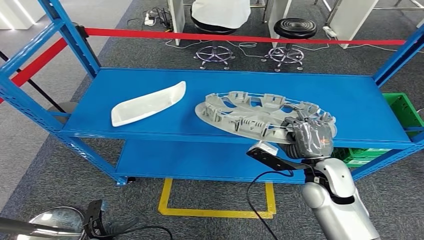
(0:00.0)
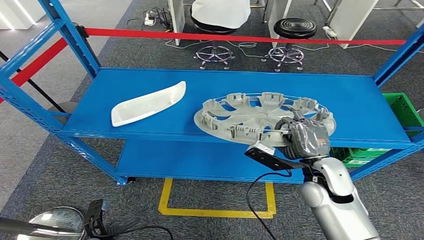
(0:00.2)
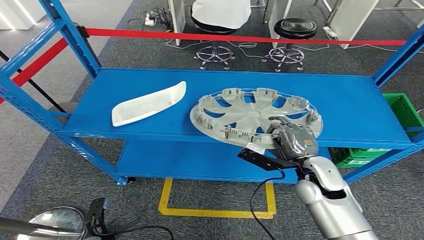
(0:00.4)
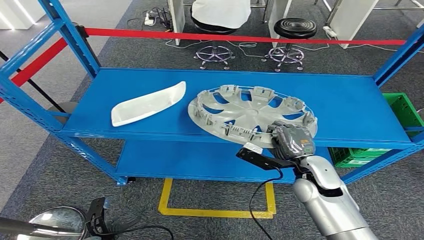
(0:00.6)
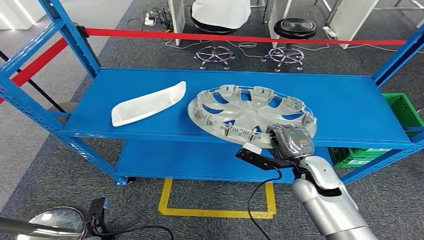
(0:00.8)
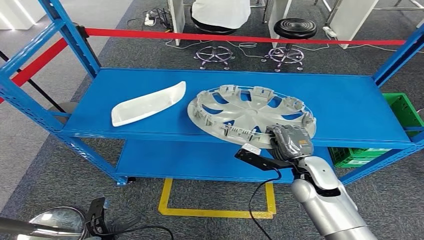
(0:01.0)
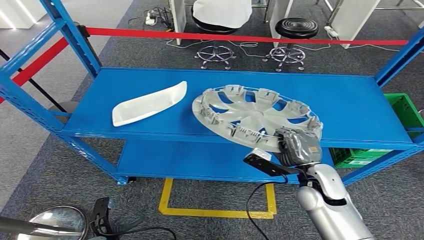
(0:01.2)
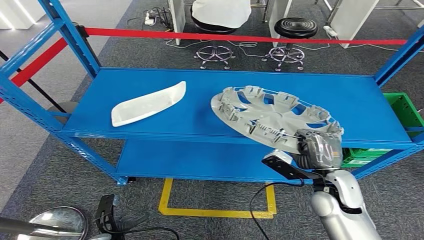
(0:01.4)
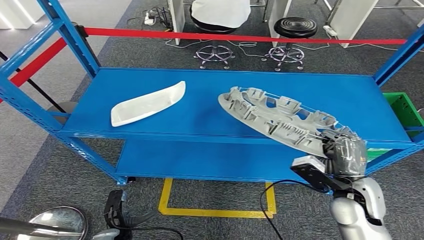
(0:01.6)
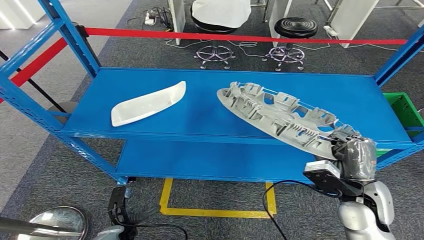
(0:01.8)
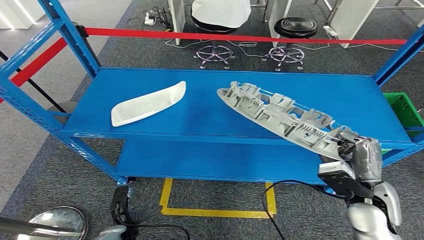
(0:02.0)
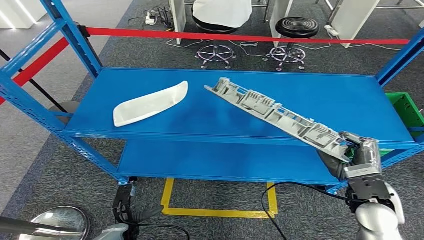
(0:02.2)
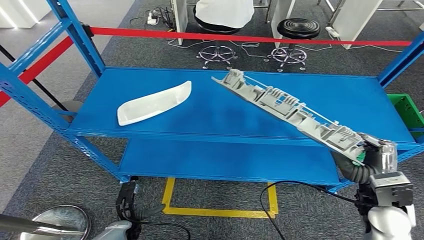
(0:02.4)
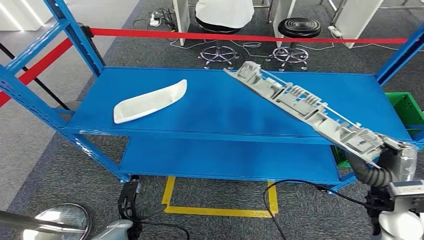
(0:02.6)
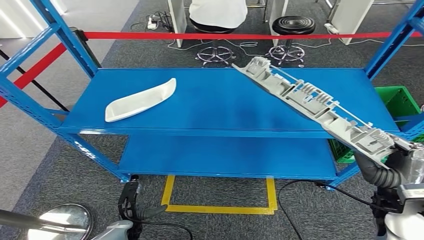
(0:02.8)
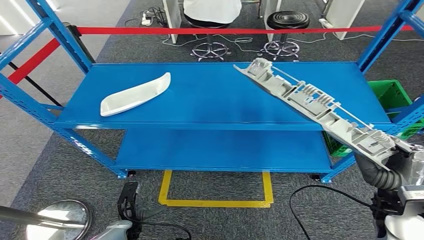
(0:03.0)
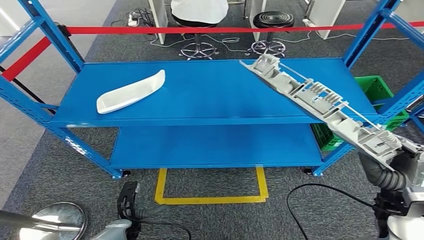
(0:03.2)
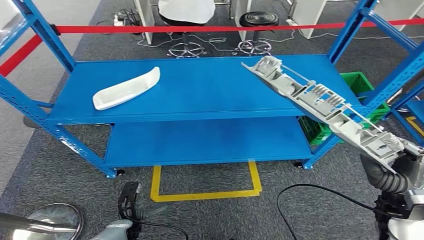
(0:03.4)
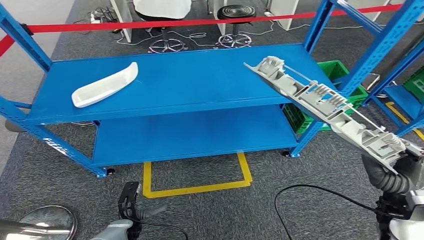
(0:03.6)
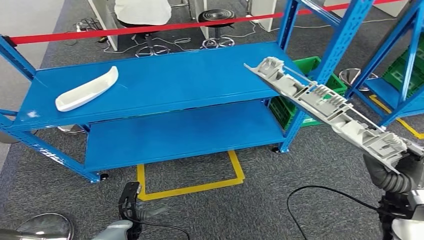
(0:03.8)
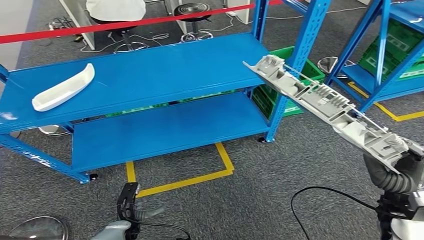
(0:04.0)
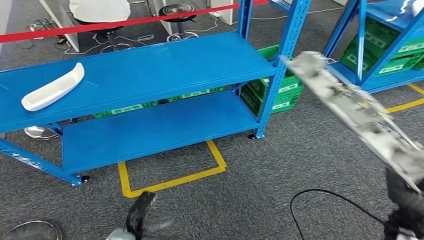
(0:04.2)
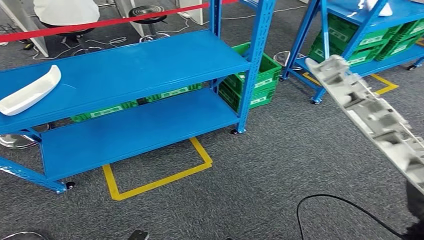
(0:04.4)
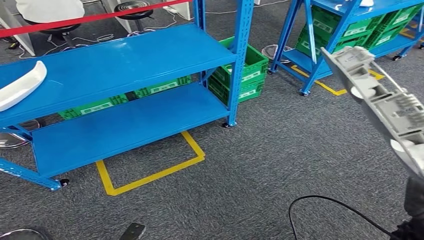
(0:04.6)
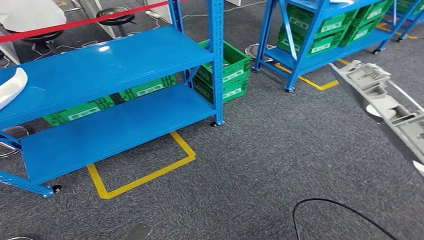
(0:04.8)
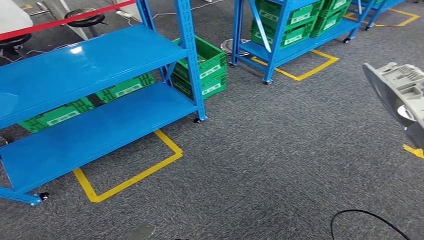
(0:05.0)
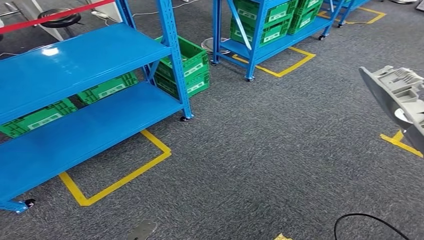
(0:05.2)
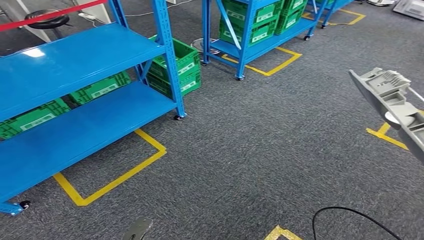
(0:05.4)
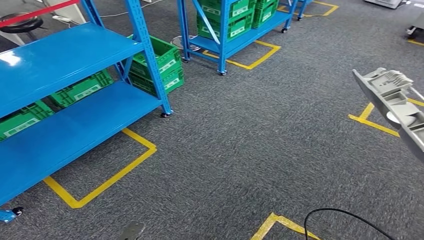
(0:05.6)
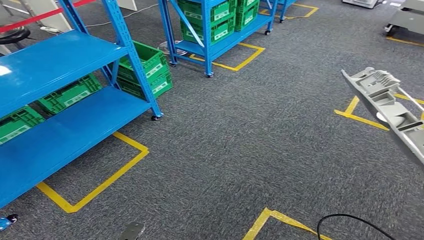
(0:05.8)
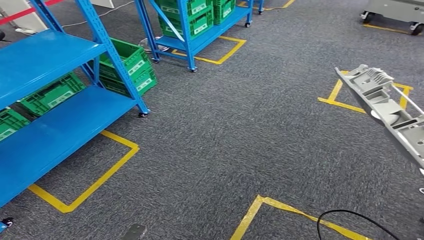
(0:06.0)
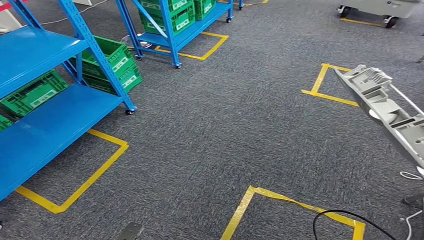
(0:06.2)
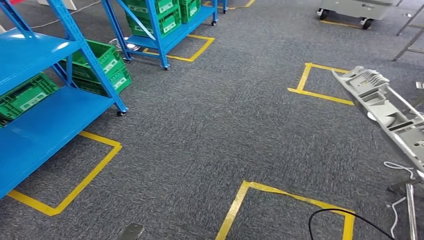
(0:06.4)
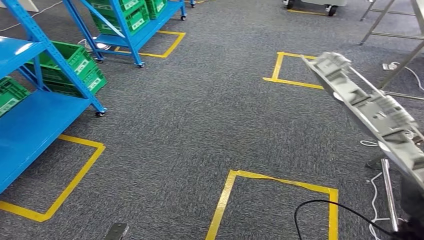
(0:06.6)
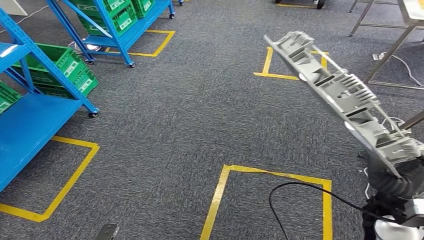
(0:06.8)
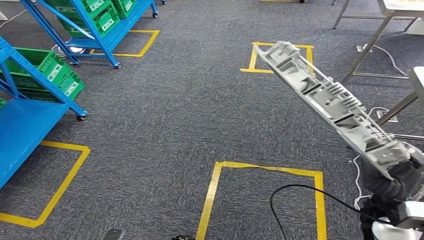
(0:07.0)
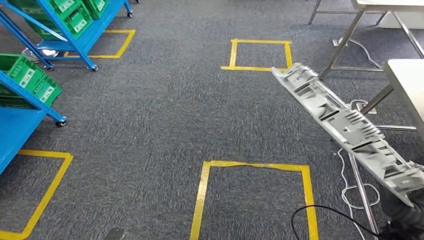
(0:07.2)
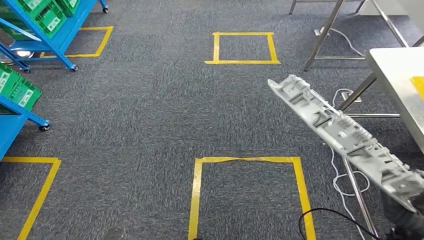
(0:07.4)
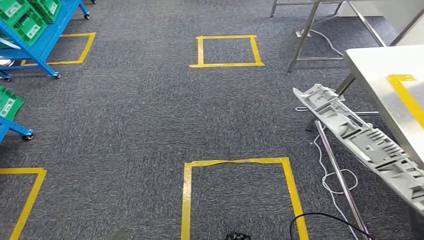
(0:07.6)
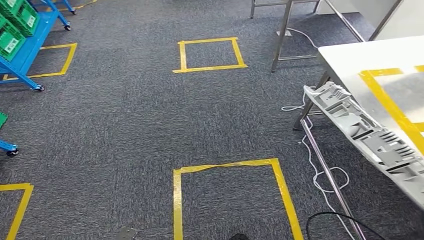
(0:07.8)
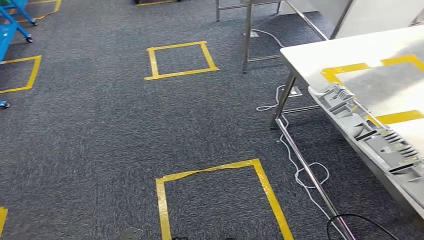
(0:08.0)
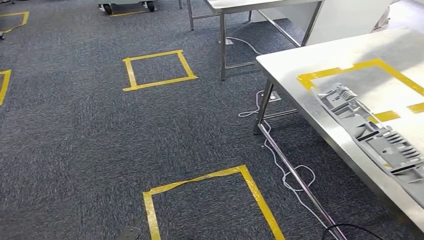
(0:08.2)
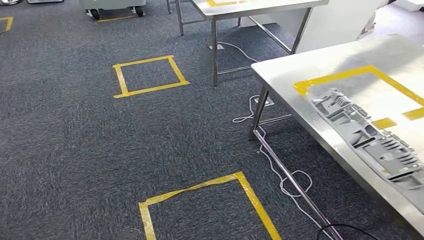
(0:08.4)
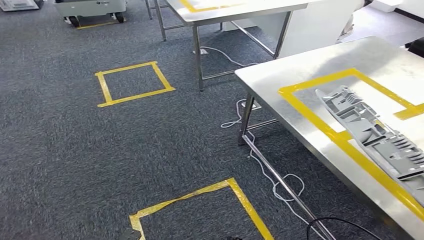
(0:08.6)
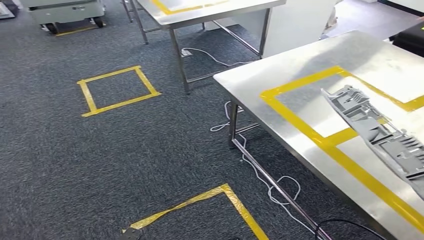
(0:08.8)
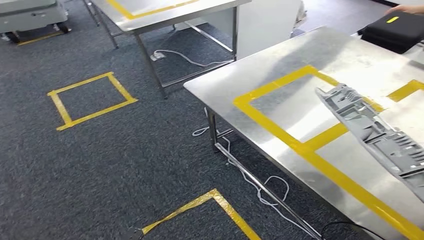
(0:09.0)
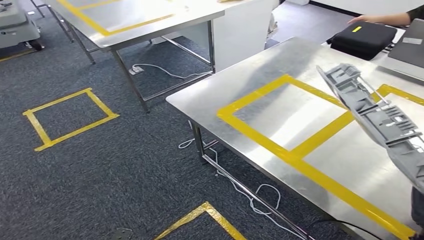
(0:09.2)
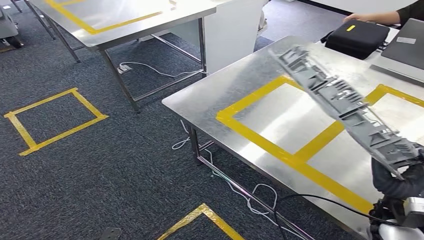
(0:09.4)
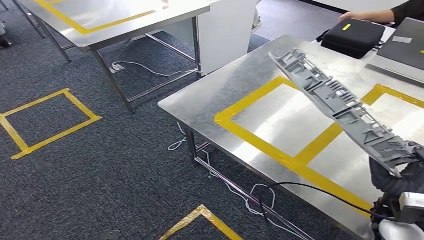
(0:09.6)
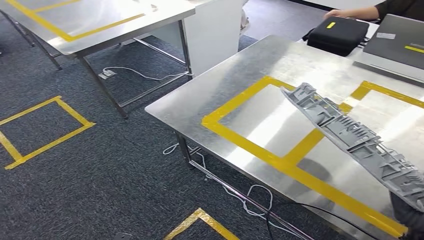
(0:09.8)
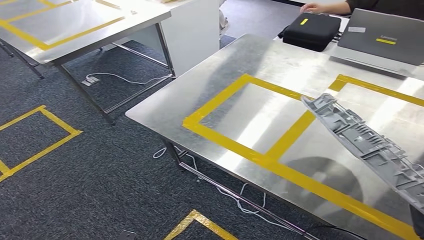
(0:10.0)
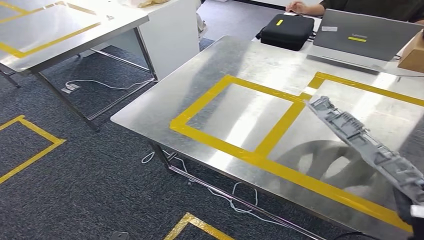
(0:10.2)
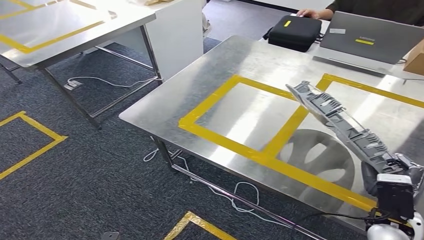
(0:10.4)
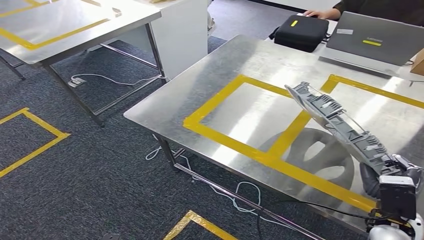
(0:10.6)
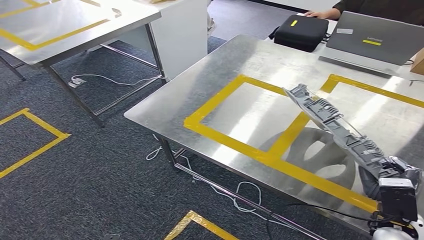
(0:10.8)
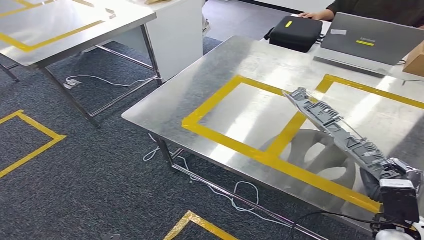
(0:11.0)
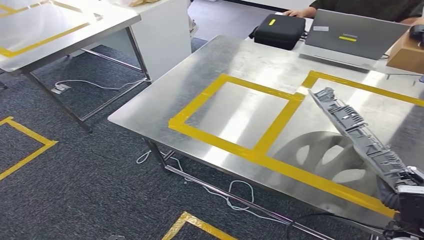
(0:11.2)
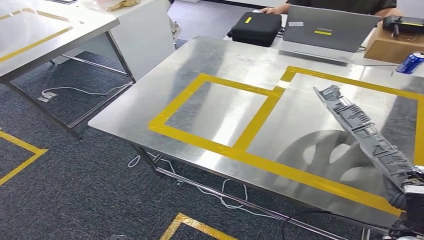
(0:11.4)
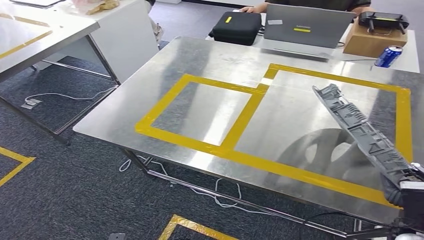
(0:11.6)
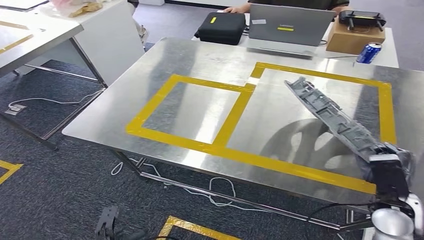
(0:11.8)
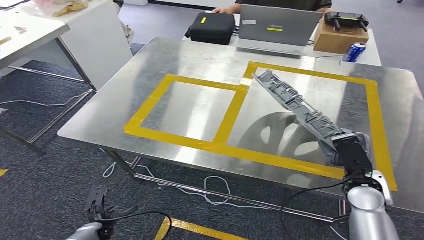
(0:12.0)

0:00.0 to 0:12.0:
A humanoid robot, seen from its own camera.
Step, 0:00.0 to 0:02.8: Pick up the small parts from the shelf.
Step, 0:03.0 to 0:11.4: Move the small parts to the workbench.
0:00.0 to 0:01.6: The right hand shifts by about 5 cm; the left hand ends up about 5 cm from where it was.

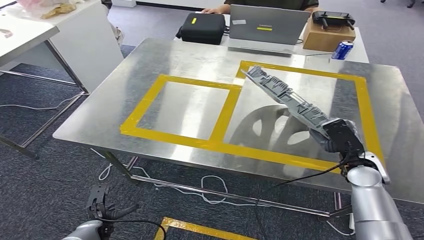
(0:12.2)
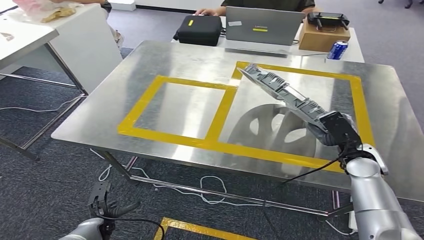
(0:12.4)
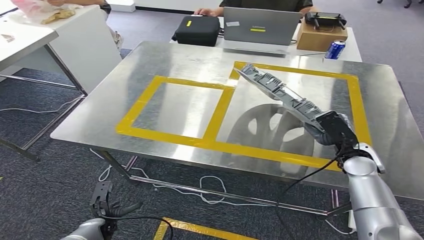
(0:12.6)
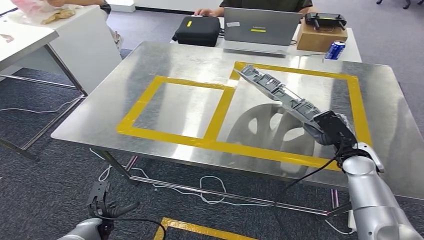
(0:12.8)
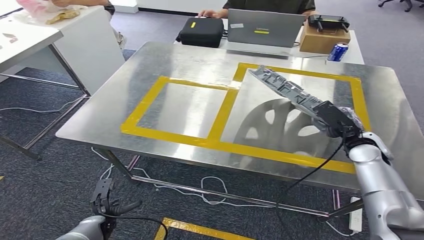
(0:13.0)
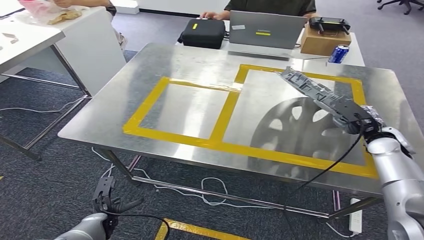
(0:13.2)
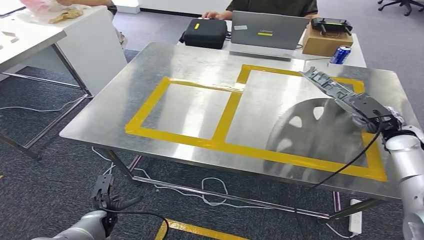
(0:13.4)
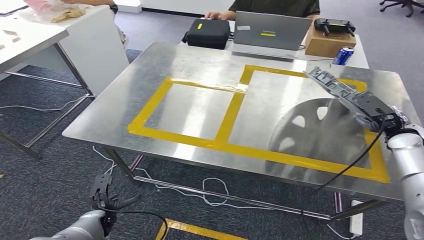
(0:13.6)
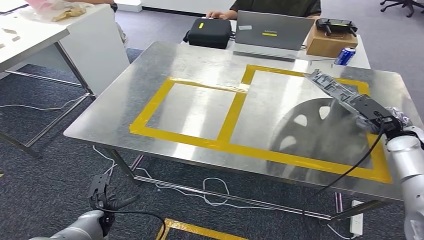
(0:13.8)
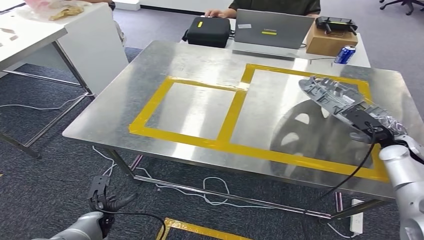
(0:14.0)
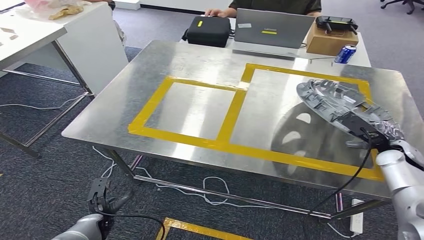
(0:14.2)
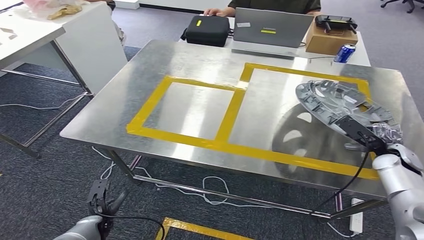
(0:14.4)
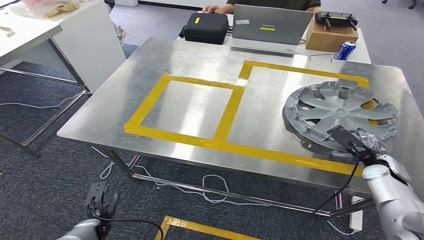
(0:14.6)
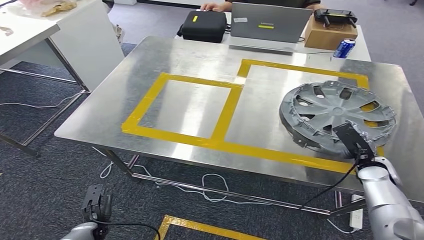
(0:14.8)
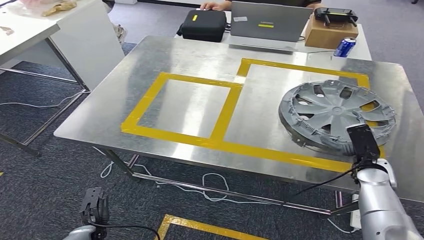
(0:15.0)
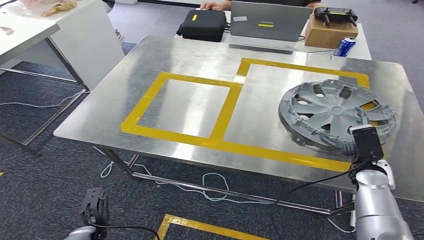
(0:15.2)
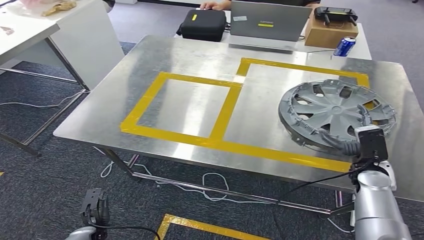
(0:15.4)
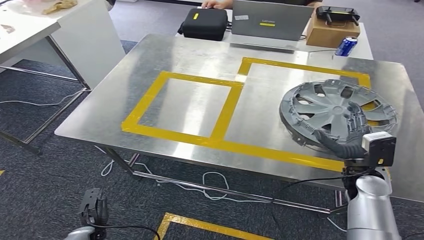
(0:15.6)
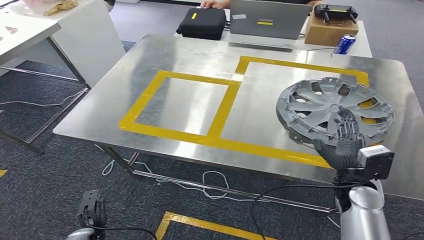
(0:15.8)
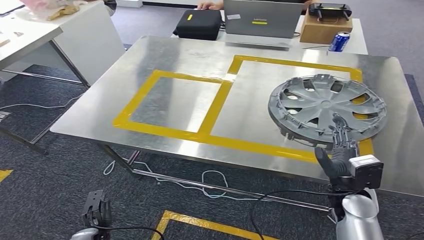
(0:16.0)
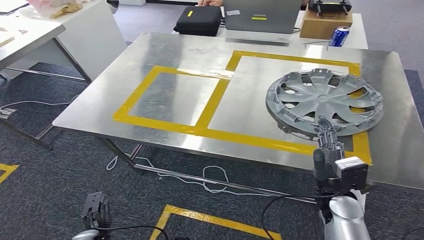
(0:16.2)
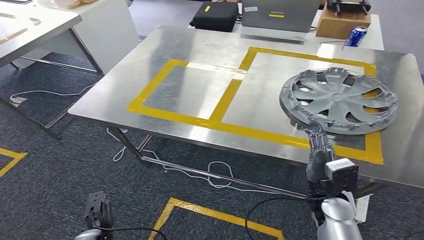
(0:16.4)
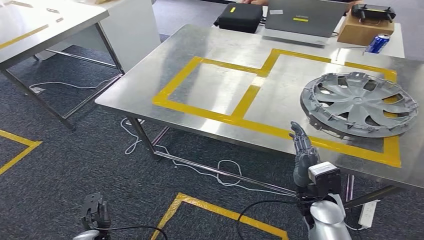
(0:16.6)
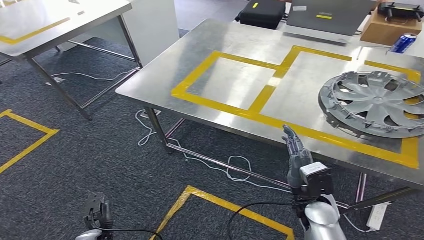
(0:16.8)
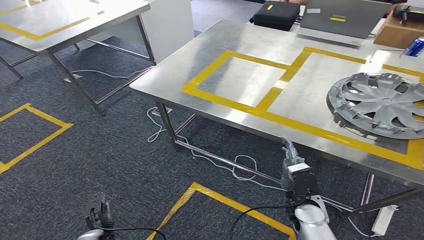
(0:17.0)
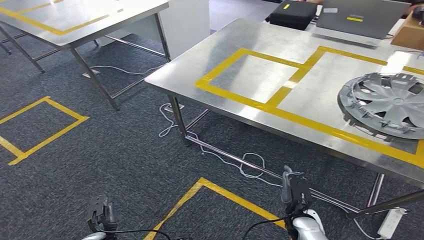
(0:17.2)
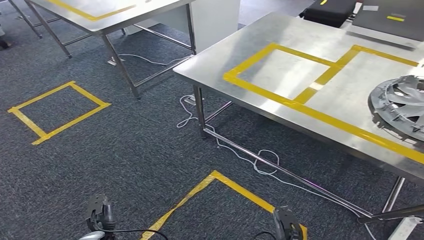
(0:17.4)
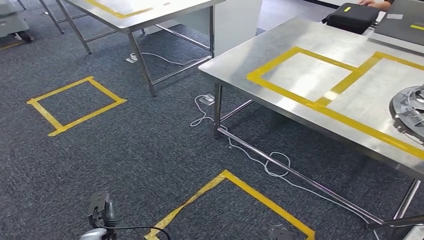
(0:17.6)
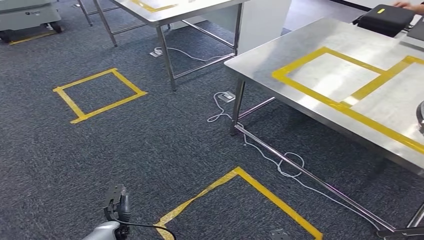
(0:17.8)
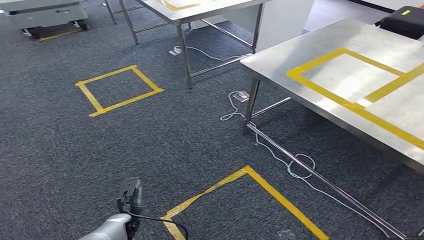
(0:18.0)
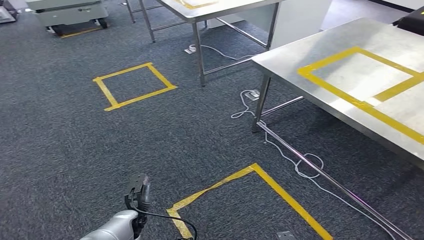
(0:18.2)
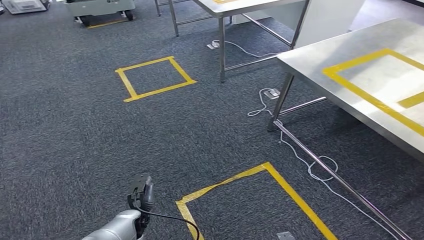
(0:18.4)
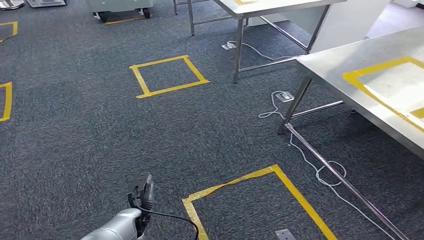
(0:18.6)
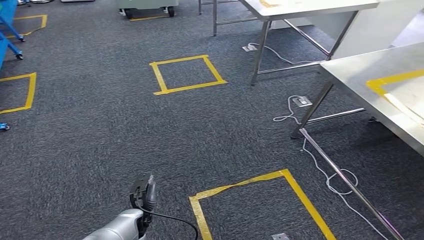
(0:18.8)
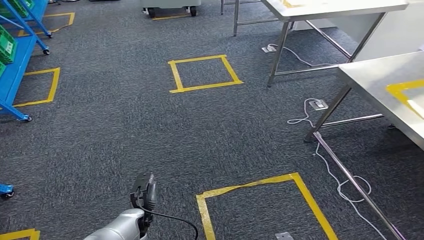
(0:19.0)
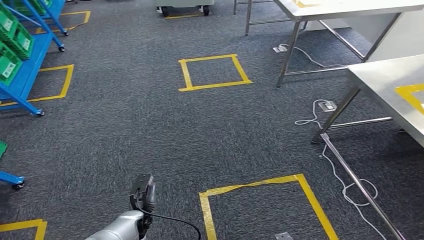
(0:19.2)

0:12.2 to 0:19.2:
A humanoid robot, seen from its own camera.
Step, 0:12.2 to 0:16.6: Insert the small parts into the corresponding slots on the workbench.
